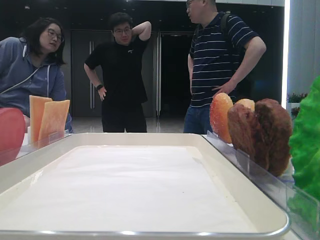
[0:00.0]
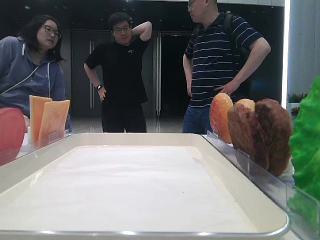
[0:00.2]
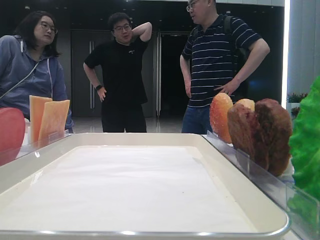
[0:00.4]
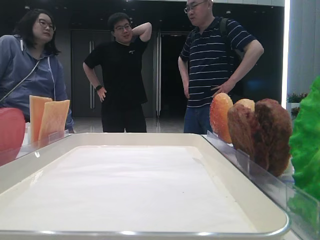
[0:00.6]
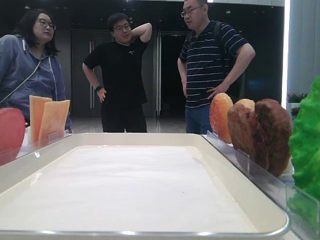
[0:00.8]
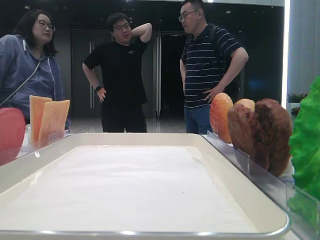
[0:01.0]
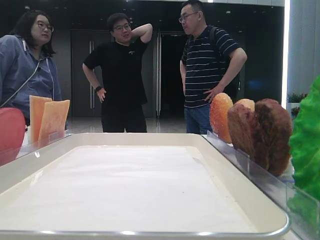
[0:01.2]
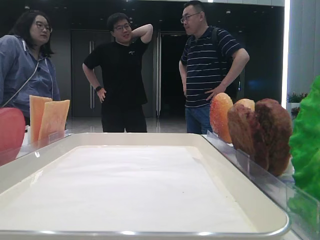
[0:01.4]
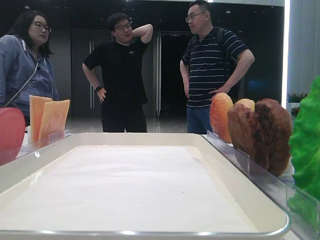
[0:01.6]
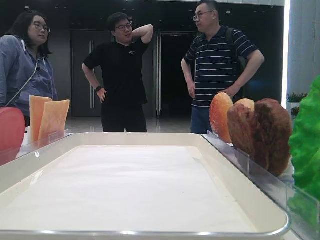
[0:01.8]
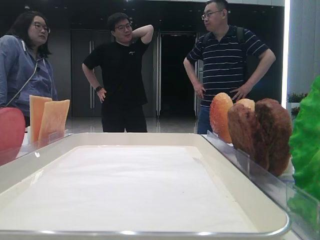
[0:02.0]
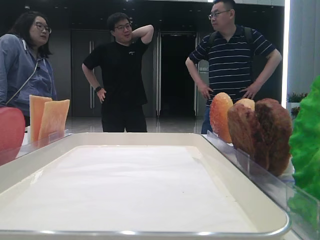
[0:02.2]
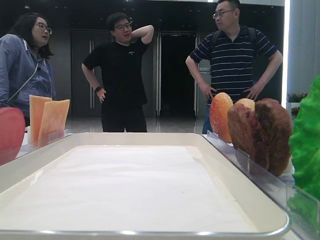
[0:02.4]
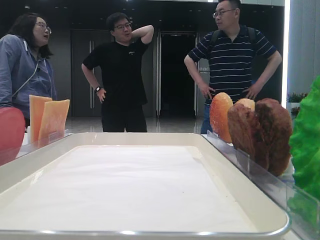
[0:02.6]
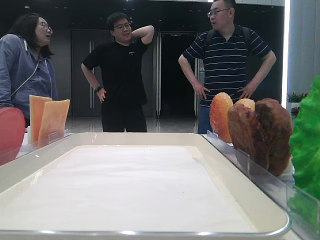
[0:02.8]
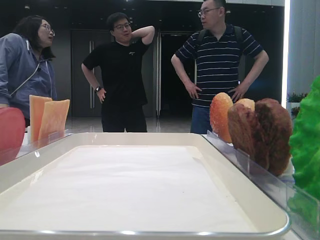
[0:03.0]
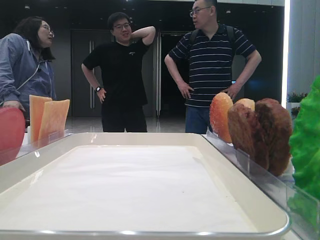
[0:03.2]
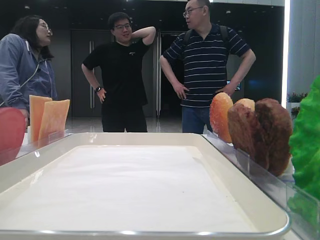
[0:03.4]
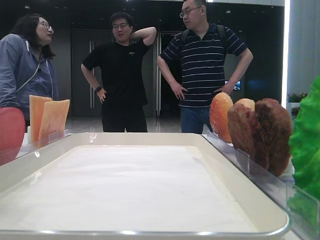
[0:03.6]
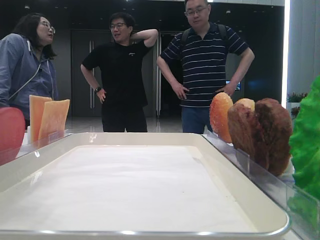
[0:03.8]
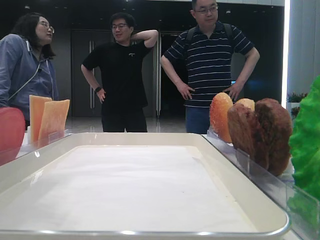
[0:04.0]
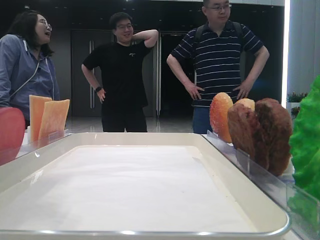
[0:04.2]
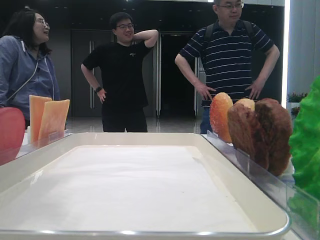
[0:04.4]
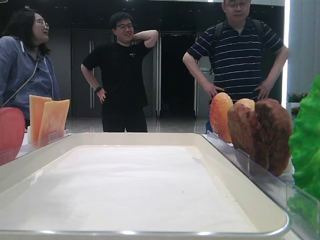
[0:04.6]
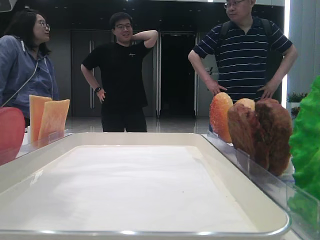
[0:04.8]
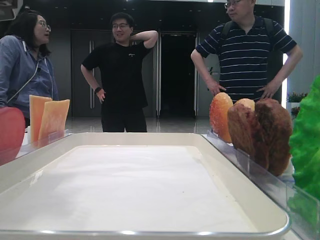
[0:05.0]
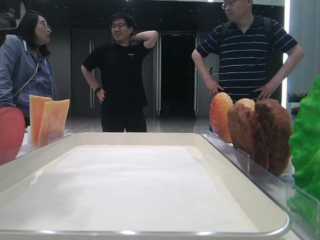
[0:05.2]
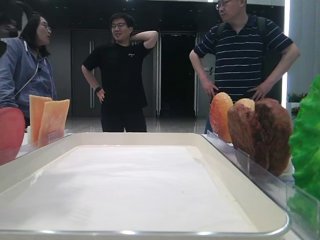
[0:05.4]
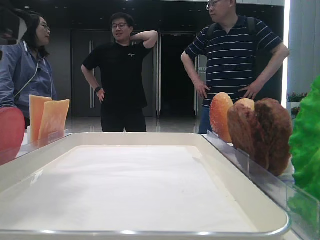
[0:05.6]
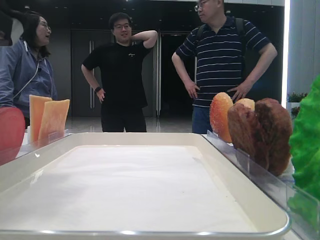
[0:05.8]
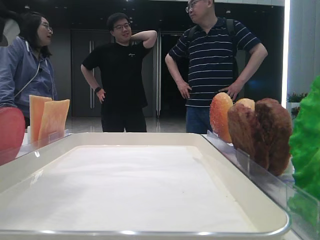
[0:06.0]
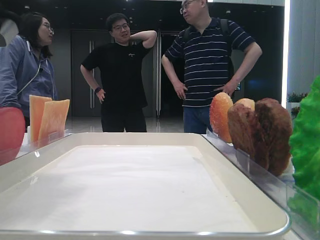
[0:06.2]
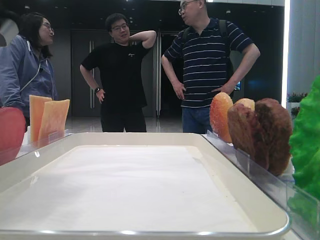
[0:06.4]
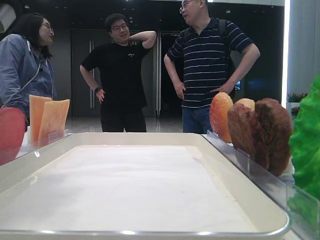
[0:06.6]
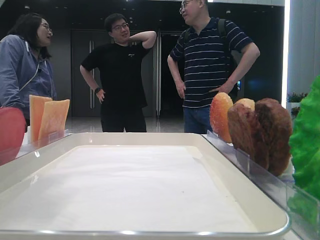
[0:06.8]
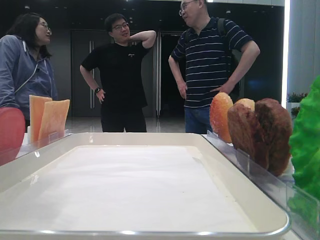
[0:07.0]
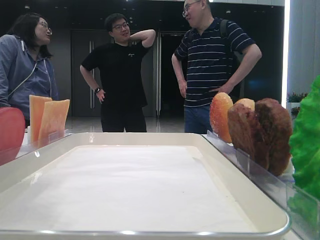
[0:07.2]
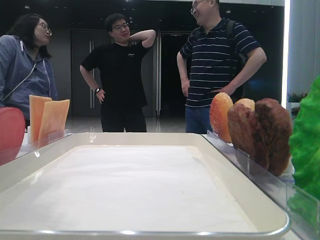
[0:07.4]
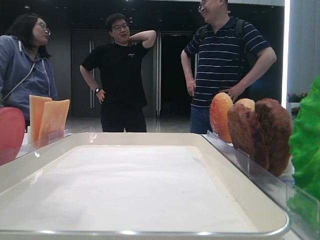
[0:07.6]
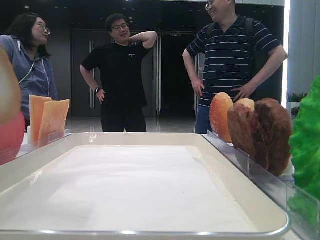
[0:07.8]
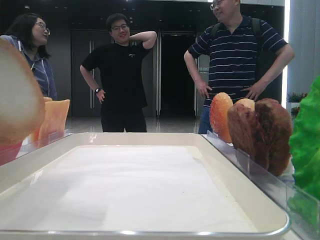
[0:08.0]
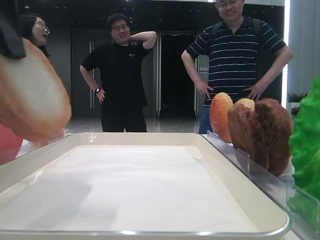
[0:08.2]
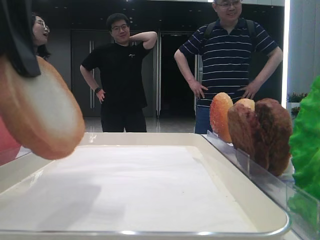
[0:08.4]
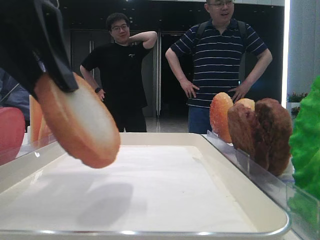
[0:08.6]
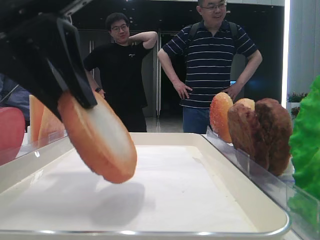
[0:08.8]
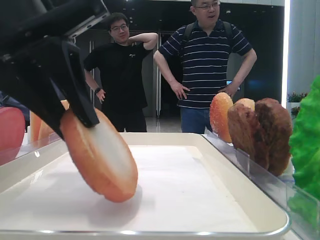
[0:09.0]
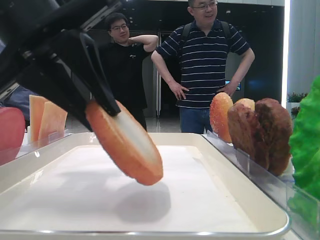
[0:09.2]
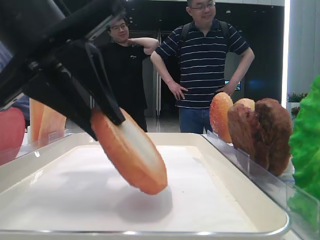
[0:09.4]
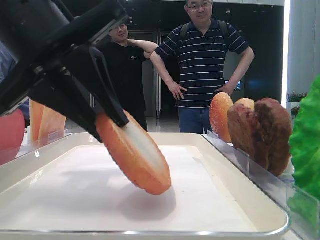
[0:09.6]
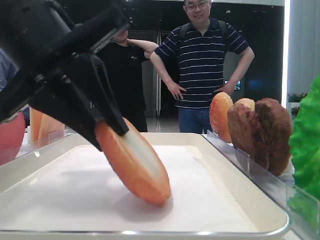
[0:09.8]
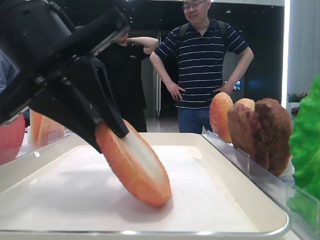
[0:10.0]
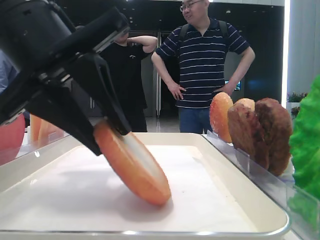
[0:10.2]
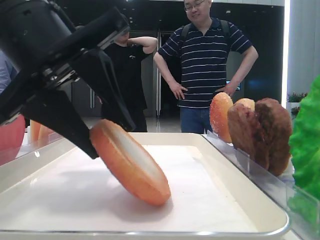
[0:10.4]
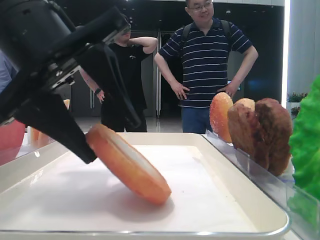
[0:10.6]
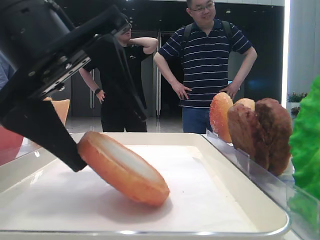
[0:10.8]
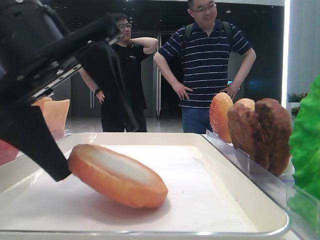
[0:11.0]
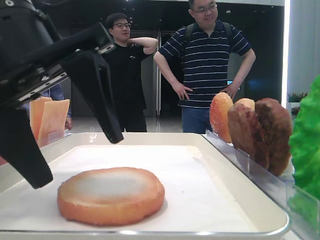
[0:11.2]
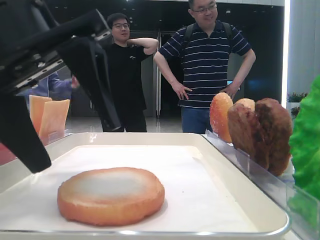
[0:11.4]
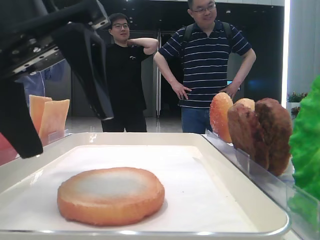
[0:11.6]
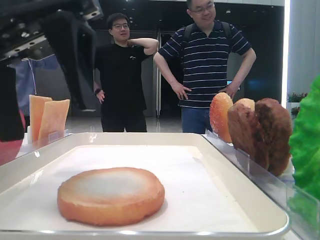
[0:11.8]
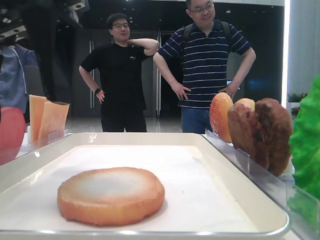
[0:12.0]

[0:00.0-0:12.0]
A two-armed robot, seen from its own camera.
Step, 0:00.0 to 0:06.6: Pick up the bottom bread with the left hand.
Step, 0:06.8 to 0:11.2: Place the bread on the tray with the left hand.
0:01.6 to 0:03.0: The left gripper shifts approximately 15 cm forward.
0:03.0 to 0:04.4: The left gripper moves to the right, approximately 10 cm.
0:04.4 to 0:06.0: The left gripper closes its fingers.
0:06.0 to 0:07.6: The left gripper shifts some 5 cm upward.
0:07.6 to 0:09.0: The left gripper shifts approximately 10 cm downward and to the right.
0:09.0 to 0:10.4: The grippers stay close to where they were, moving slightly.
0:10.4 to 0:12.0: The left gripper changes place by roughly 5 cm, and opens its fingers.

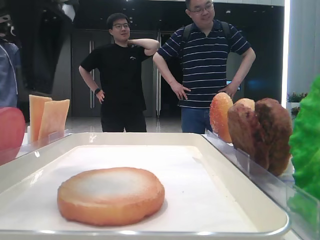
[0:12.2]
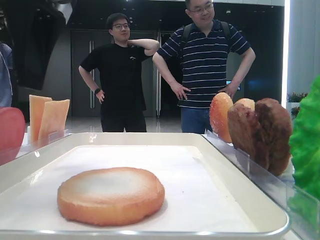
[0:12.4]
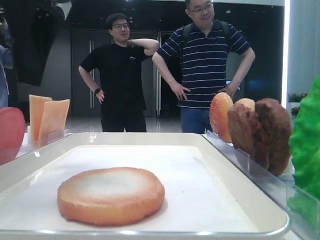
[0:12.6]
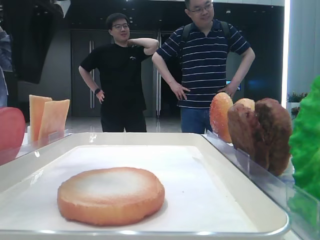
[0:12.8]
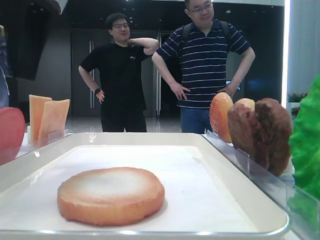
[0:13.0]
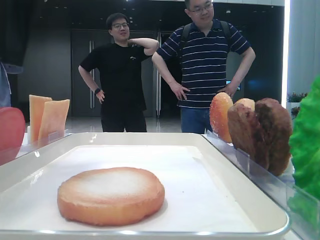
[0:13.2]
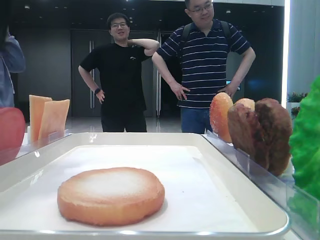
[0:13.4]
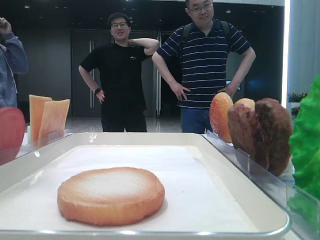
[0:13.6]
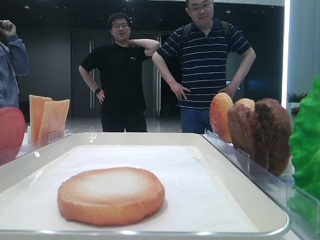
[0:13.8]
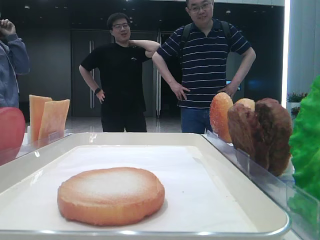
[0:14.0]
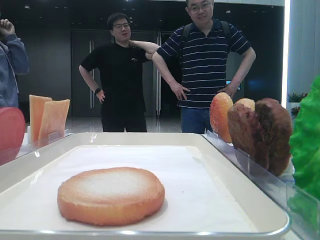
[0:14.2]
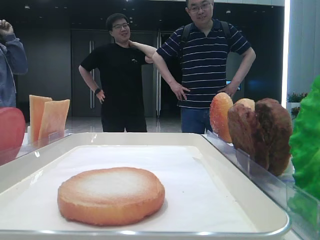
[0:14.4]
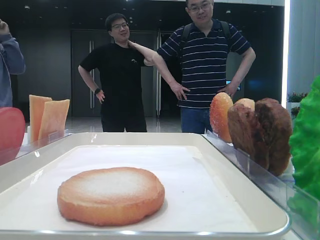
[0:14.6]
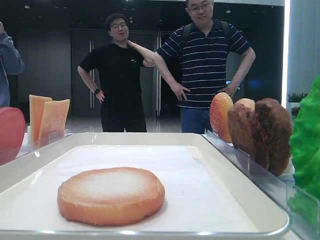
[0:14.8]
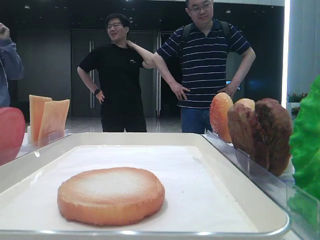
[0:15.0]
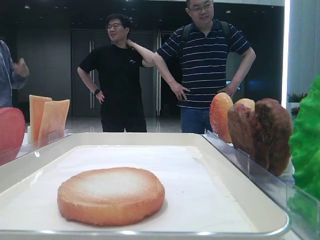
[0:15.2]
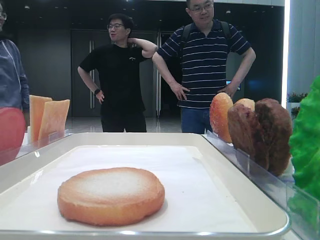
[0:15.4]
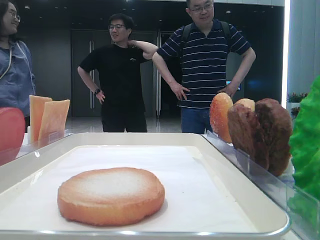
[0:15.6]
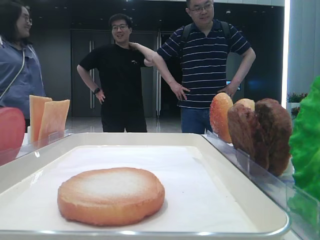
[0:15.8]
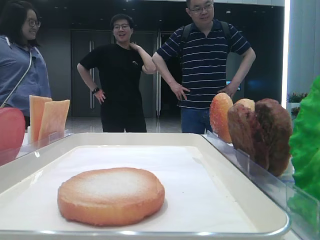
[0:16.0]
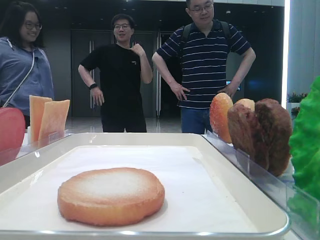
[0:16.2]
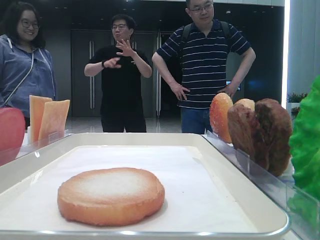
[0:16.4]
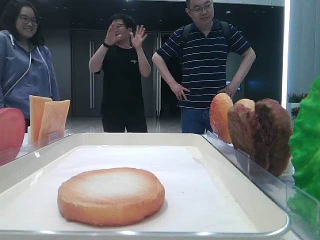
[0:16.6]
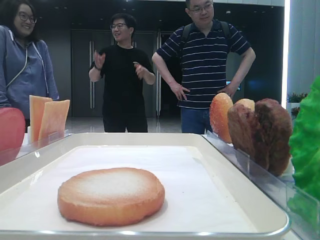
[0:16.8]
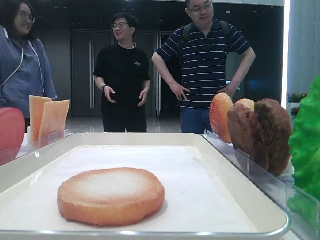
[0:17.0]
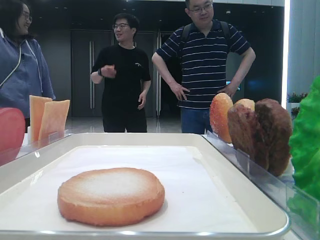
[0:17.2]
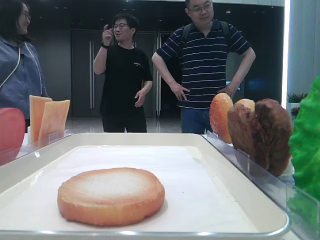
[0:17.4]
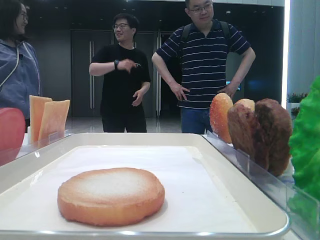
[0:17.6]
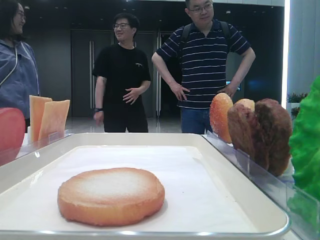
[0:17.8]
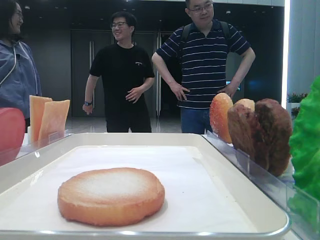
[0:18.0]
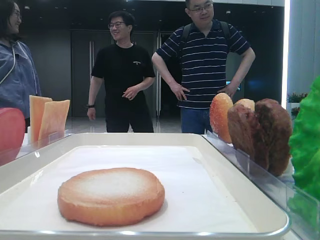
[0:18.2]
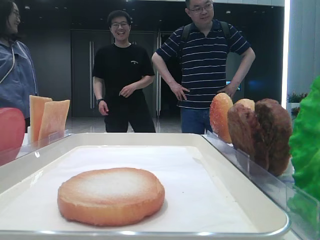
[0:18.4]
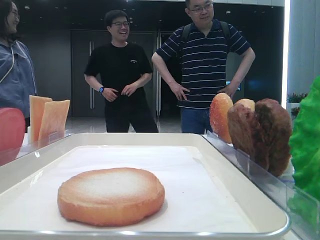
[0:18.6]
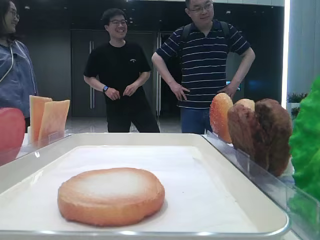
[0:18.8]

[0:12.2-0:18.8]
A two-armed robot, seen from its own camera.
0:12.2 to 0:13.8: The left gripper shifts some 15 cm to the left and upward.
0:13.8 to 0:15.4: The left gripper goes some 10 cm backward and to the left.
0:15.4 to 0:17.2: The left gripper travels backward by approximately 15 cm.
0:17.2 to 0:18.8: Both grippers stay about where they are.

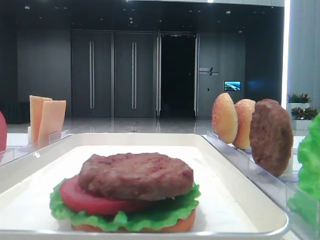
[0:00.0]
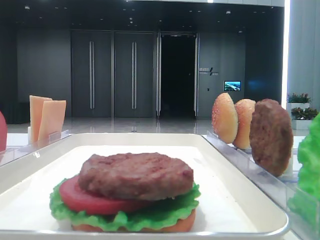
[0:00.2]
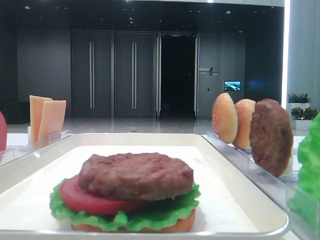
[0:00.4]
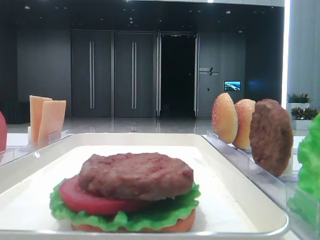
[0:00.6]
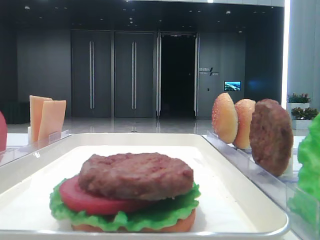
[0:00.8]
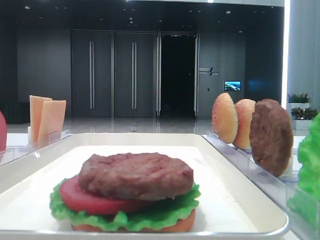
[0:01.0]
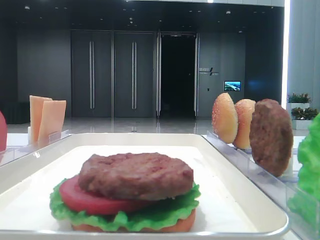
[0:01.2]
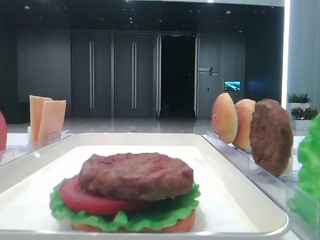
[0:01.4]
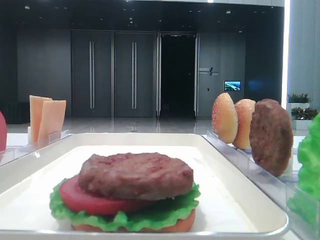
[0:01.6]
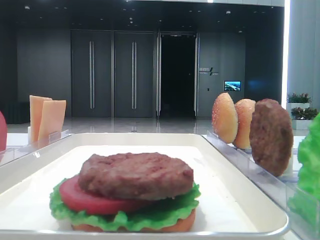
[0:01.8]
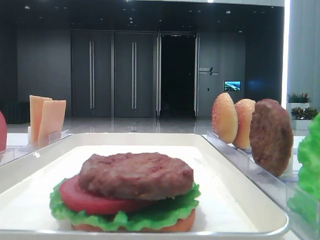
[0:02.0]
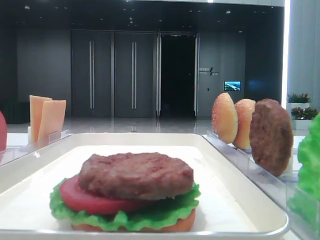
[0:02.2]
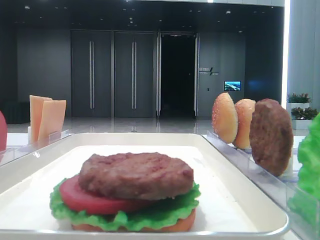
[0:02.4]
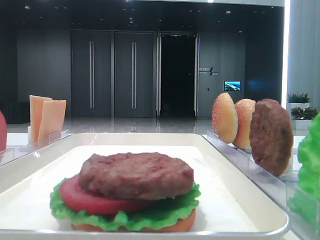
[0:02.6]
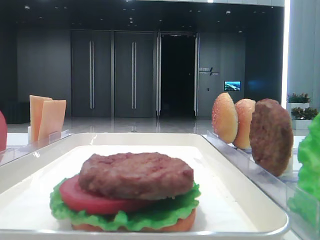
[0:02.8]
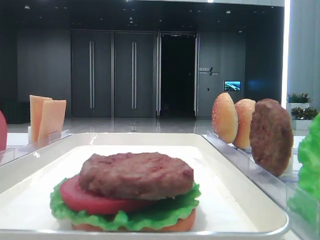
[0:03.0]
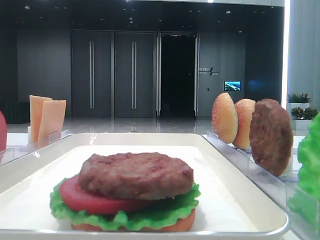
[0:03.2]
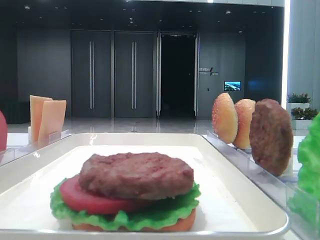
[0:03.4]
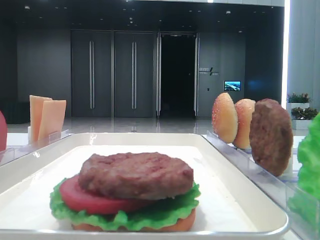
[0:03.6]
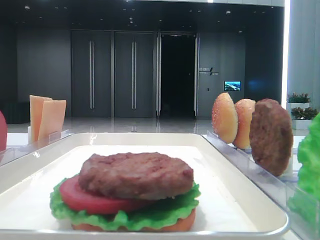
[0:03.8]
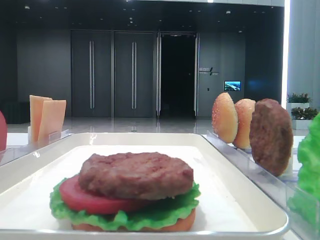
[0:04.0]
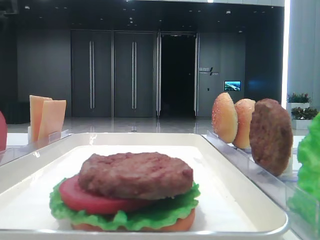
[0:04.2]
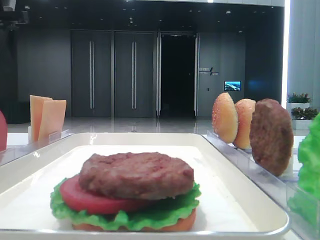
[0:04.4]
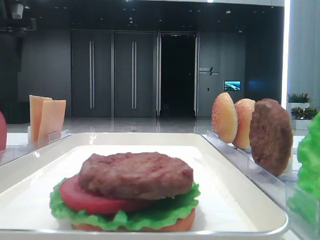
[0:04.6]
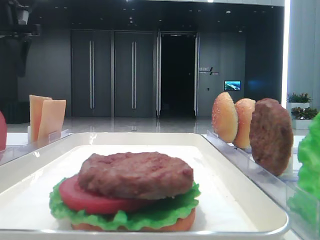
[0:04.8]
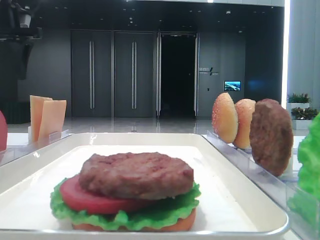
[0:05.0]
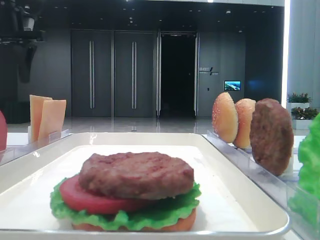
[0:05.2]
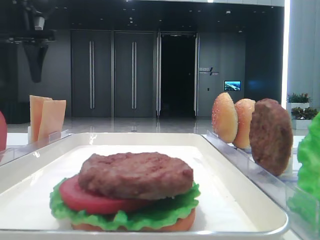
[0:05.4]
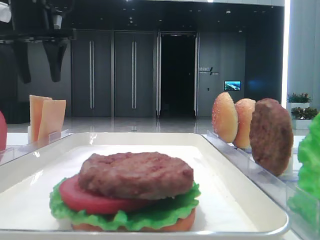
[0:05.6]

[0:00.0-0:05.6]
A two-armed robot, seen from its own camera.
0:04.2 to 0:05.6: The left gripper shifts about 10 cm to the right and forward.
